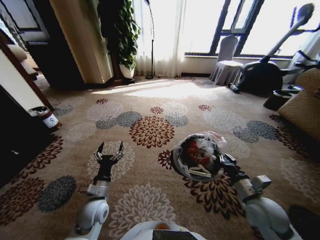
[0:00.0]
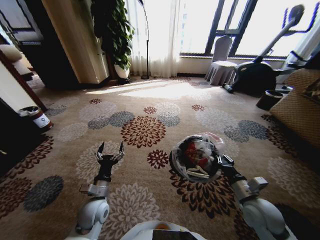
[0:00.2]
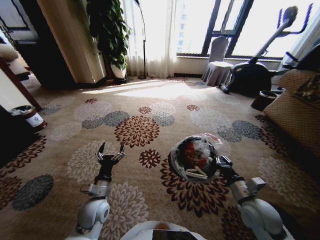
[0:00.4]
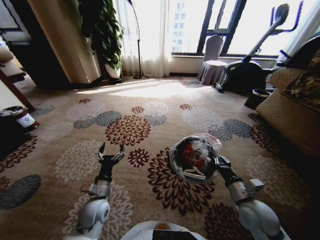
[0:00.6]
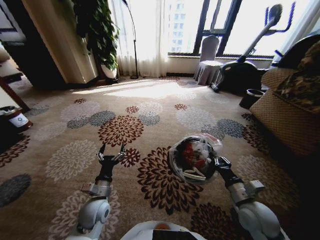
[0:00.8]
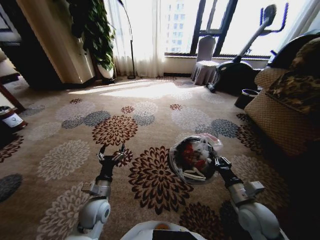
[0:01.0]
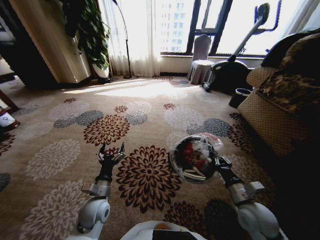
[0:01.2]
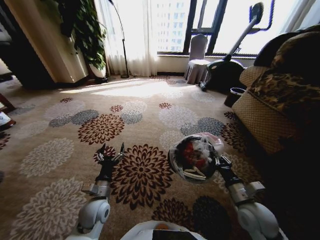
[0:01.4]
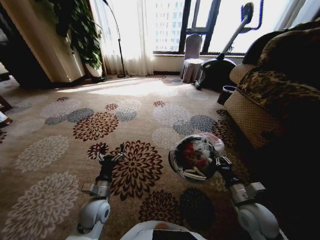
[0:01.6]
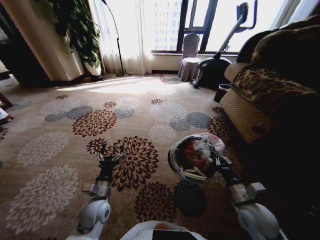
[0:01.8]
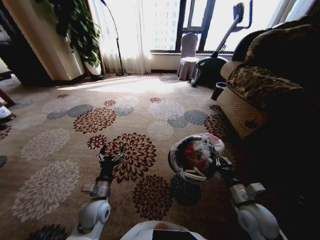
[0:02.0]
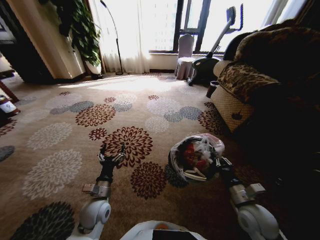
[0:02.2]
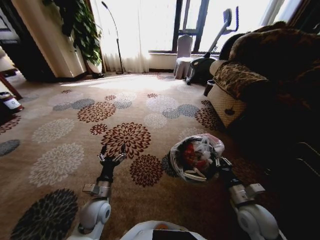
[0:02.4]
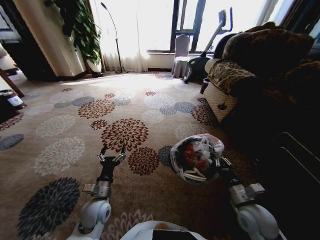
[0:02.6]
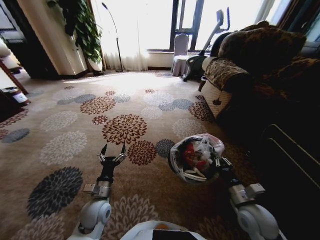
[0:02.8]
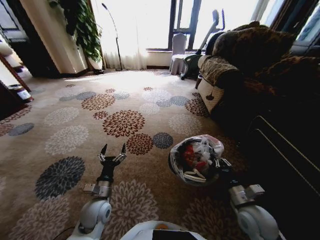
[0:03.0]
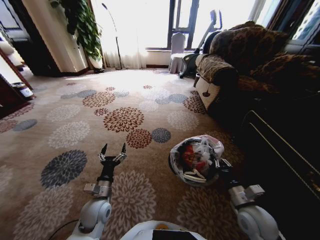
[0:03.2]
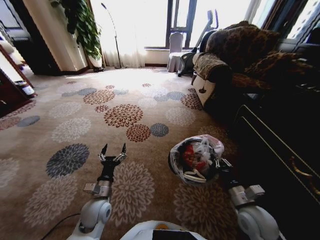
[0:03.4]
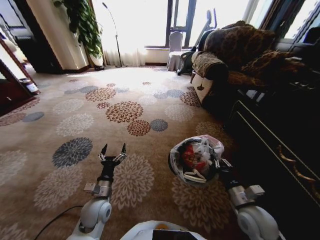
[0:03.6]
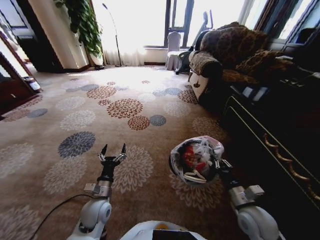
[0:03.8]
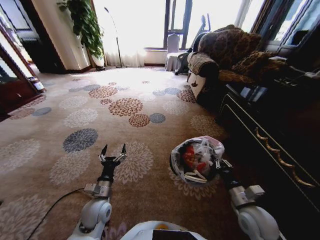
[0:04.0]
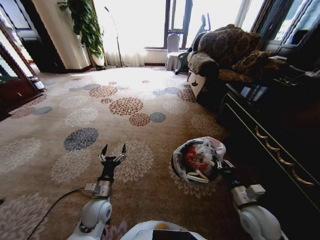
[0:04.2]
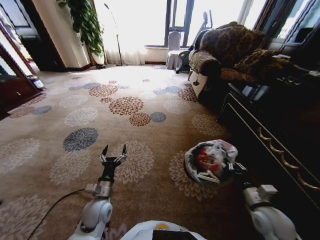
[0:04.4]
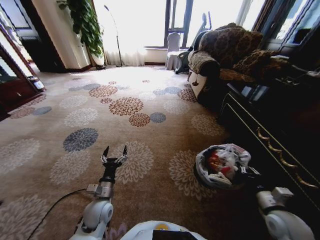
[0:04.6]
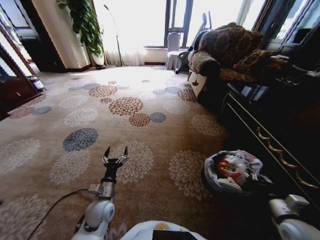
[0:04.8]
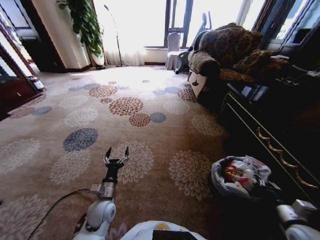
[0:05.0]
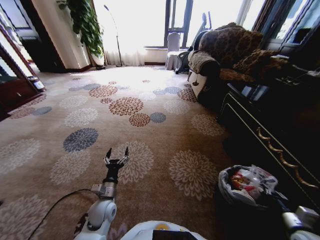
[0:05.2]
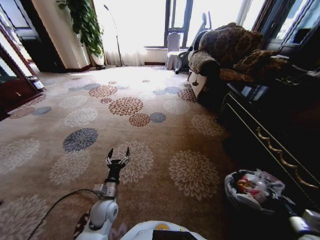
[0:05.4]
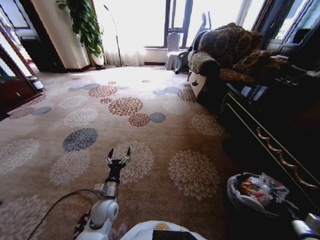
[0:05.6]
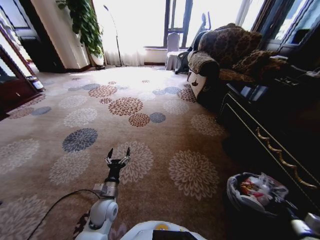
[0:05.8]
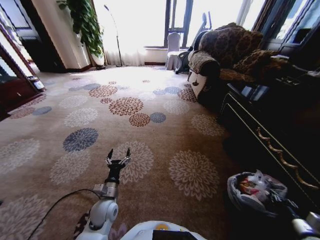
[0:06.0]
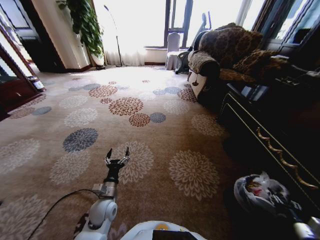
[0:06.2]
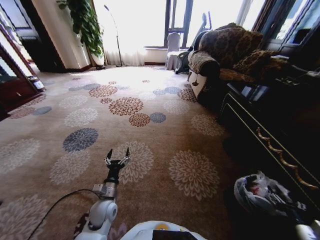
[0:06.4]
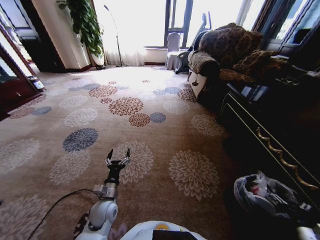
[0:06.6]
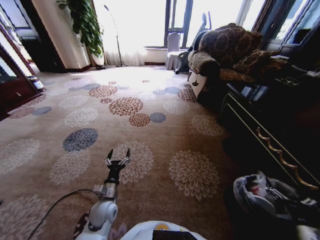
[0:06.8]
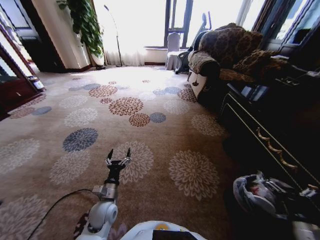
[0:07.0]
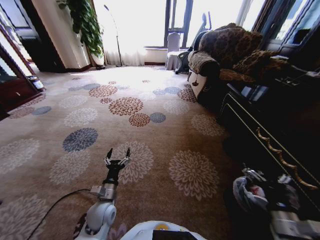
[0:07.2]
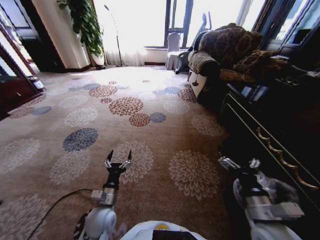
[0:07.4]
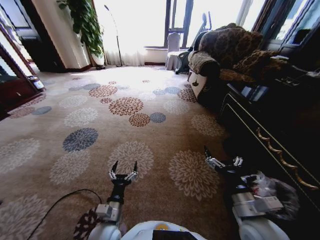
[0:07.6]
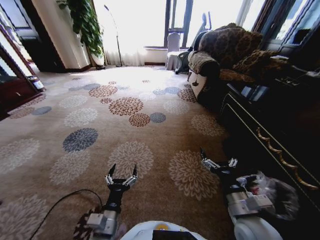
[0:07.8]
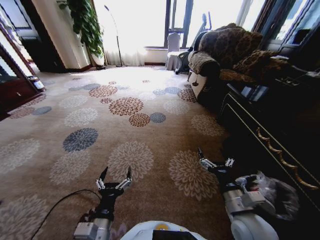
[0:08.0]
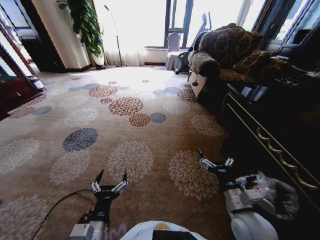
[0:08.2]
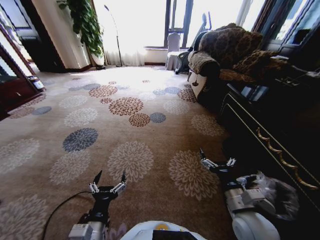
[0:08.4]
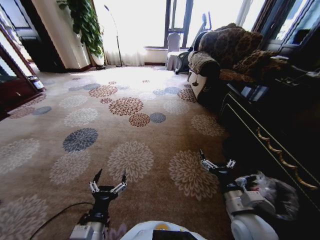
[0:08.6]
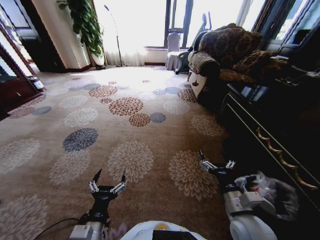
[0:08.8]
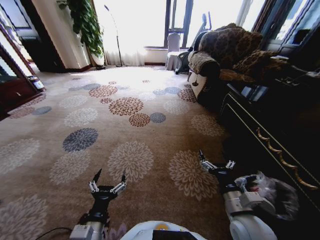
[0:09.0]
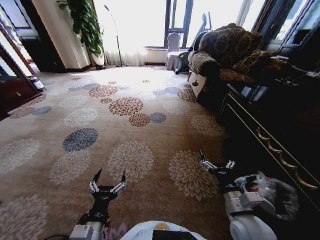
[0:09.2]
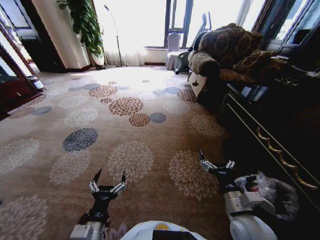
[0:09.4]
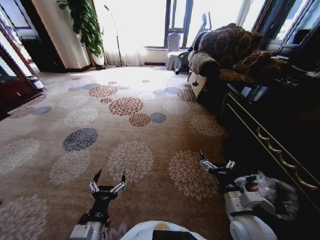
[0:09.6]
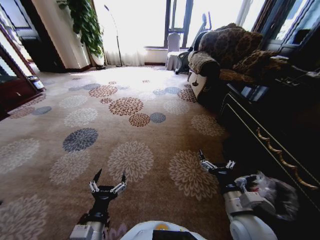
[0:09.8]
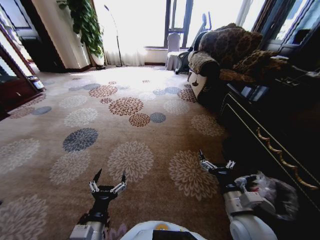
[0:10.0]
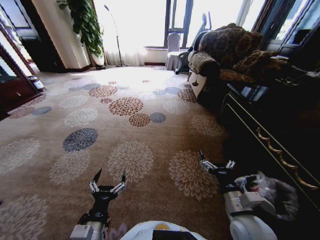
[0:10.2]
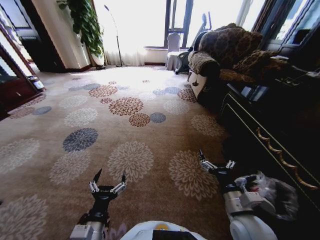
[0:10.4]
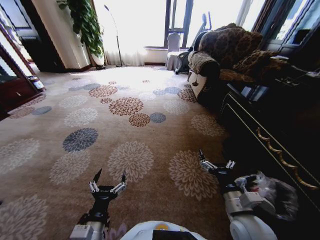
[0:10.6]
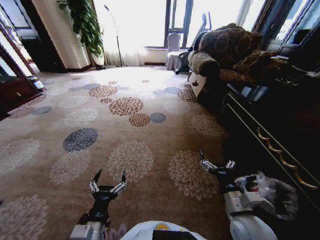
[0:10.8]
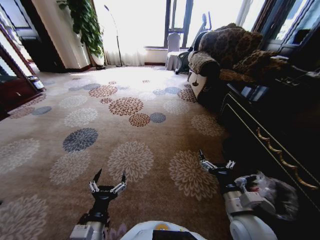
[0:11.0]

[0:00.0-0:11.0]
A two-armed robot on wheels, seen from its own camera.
Task of the whole recording: Pick up the trash from the ground and place it into the trash bin.
0:03.2 to 0:04.8: The right gripper moves to the right, about 15 cm.
0:04.8 to 0:06.2: The right gripper moves to the right, downward and backward, approximately 10 cm, and opens up.
0:06.2 to 0:07.8: The right gripper heads to the left and upward, covering some 30 cm, and opens. Meanwhile the left gripper heads backward, upward and to the right, covering roughly 15 cm.
0:07.8 to 0:09.4: The left gripper ends up some 5 cm from where it was.
0:09.4 to 0:11.0: The two grippers keep their place.

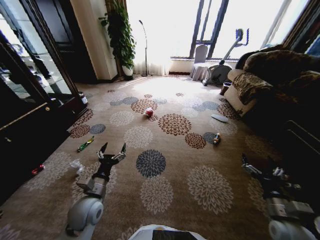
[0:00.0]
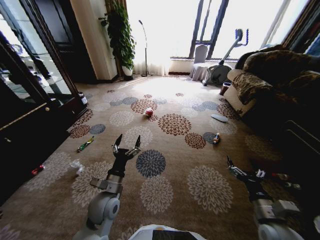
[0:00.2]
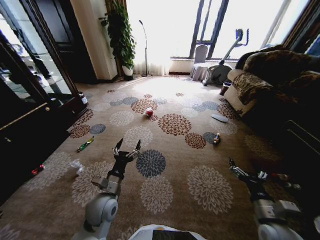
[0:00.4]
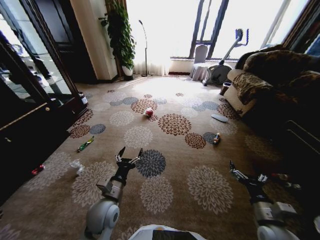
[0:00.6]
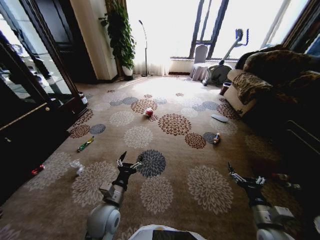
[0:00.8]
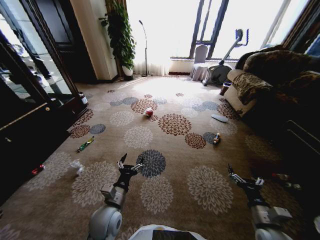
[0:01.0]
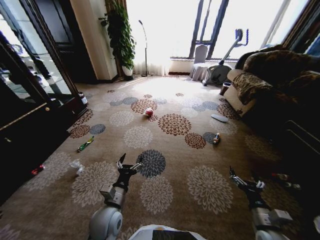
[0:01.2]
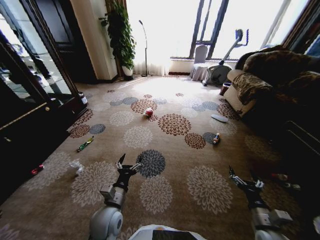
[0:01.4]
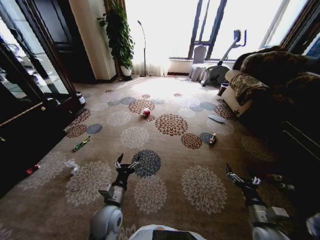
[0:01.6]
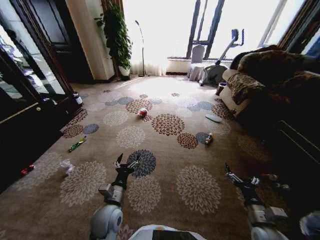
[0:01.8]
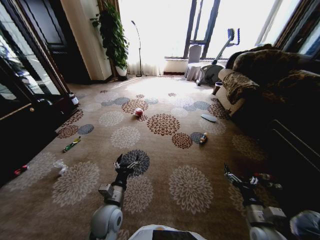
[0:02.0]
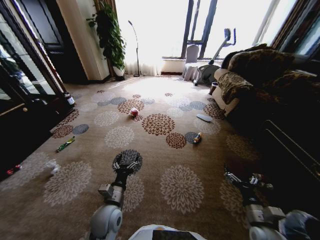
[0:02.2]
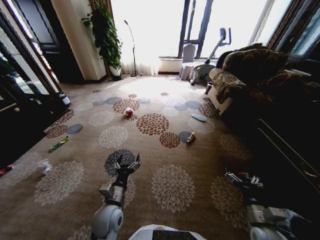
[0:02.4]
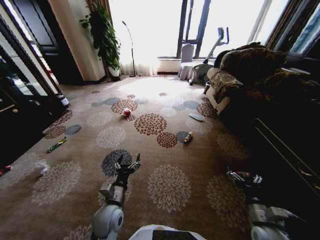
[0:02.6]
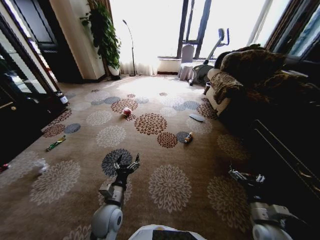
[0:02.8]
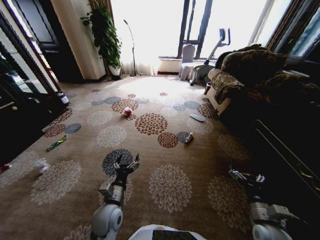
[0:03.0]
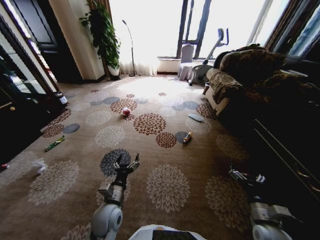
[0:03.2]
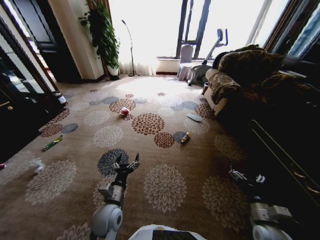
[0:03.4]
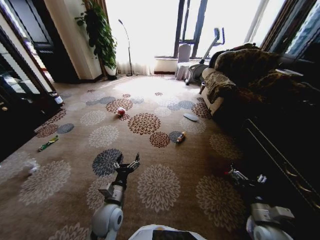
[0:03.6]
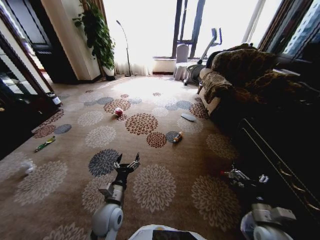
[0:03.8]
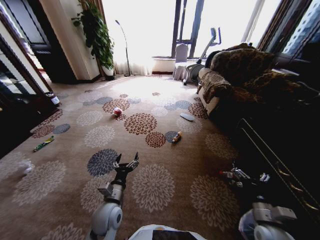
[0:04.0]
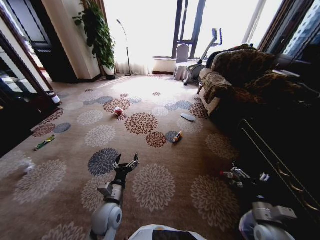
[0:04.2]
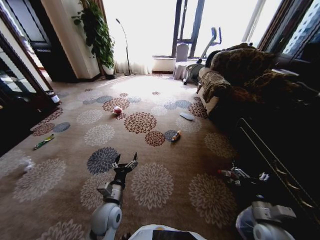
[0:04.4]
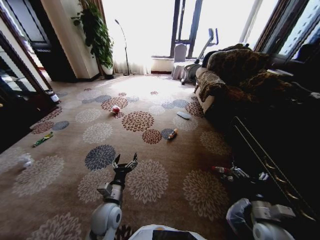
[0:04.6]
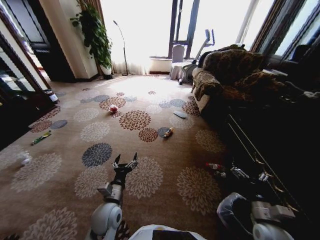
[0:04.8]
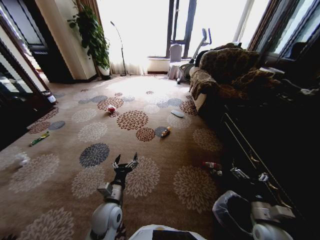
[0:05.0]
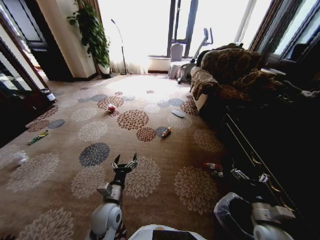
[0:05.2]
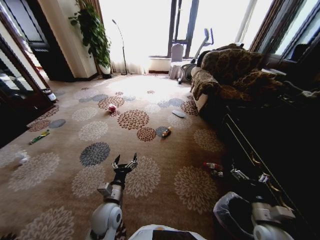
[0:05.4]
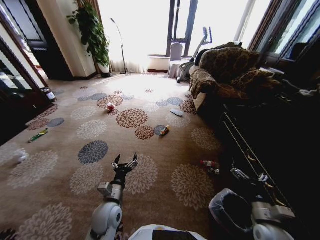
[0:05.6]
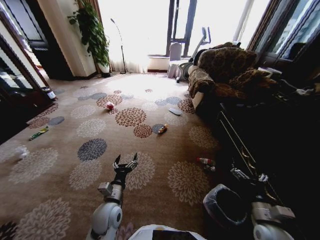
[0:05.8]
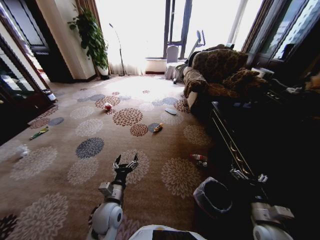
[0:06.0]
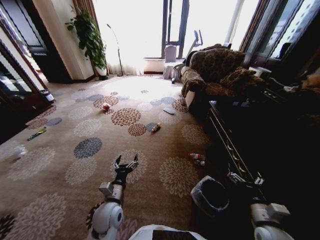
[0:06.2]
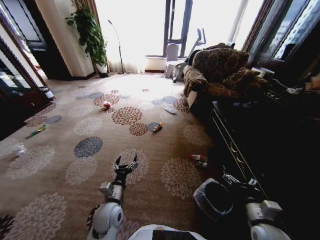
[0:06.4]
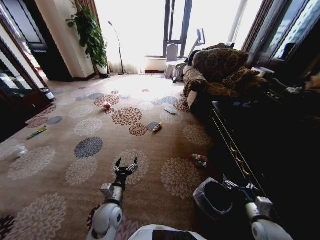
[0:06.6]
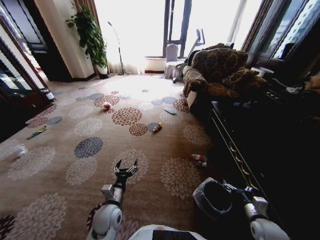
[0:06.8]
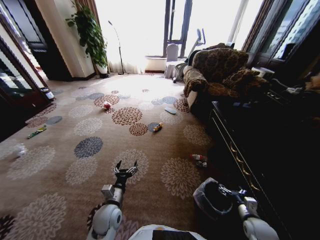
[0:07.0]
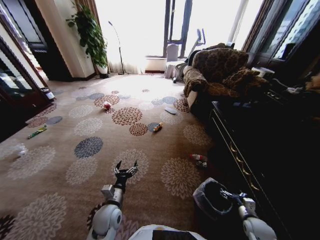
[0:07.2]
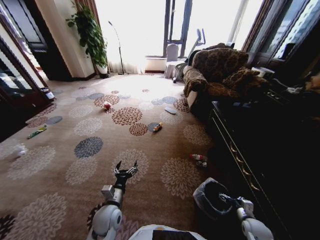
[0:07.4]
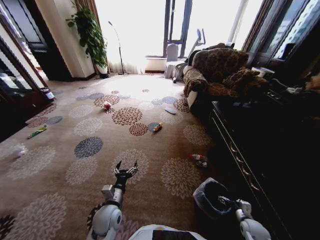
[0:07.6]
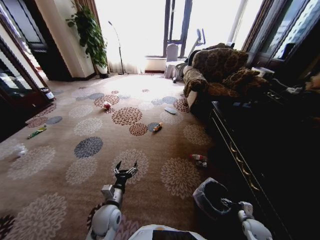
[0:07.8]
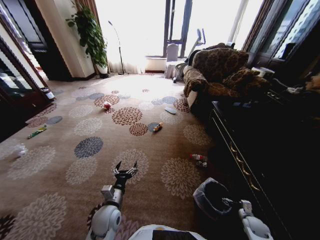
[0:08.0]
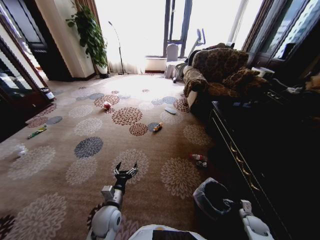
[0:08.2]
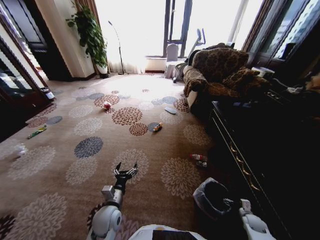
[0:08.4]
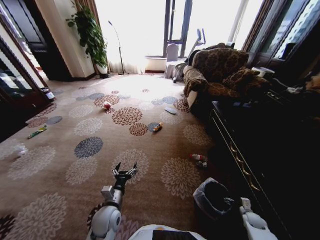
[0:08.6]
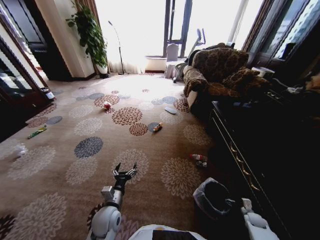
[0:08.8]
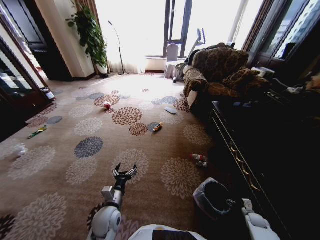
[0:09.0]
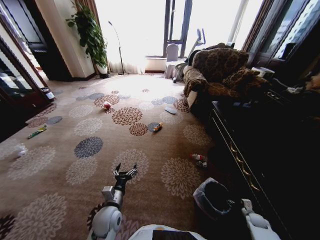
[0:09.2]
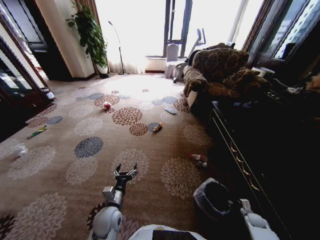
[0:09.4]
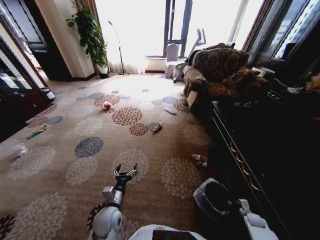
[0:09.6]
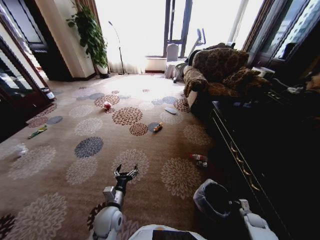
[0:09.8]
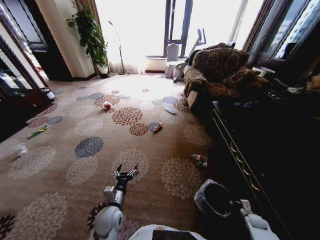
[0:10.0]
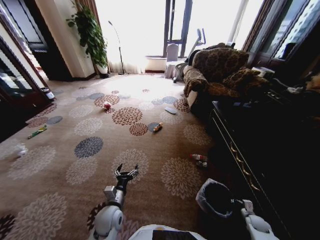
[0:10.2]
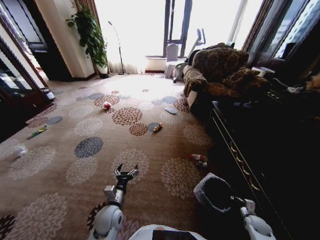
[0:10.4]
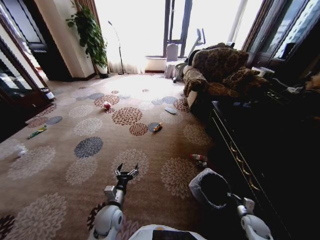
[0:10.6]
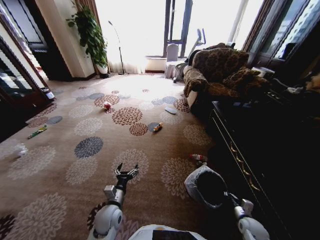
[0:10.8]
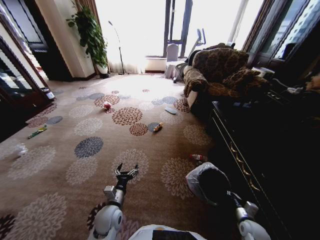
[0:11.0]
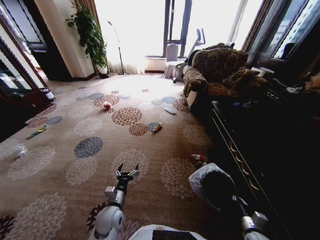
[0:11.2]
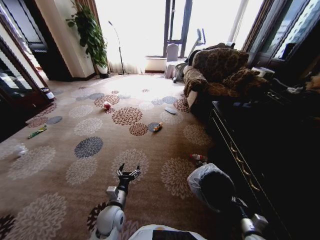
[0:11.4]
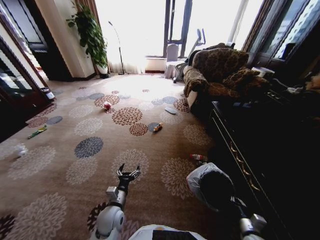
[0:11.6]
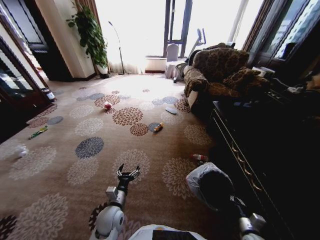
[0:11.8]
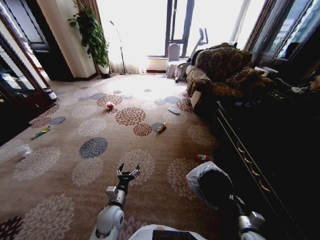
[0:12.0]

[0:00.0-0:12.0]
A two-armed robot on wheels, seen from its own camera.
Task of the whole recording: Pick up the trash from the ground and place it into the trash bin.
0:06.0 to 0:07.6: The right gripper travels downward and to the right by some 20 cm.
0:07.6 to 0:09.0: The right gripper shifts some 10 cm to the right and downward.
0:09.0 to 0:10.4: The right gripper changes place by about 5 cm, and closes its fingers.
0:10.4 to 0:12.0: The right gripper moves to the left, upward and backward, roughly 15 cm.
